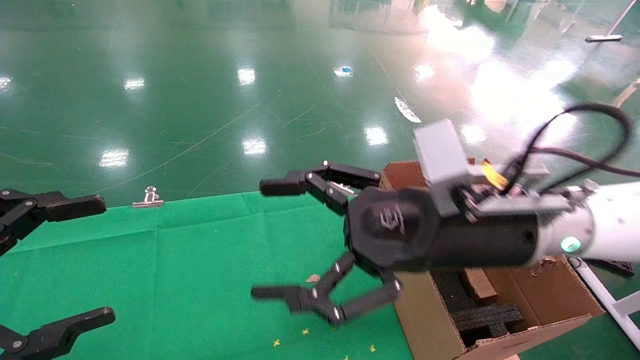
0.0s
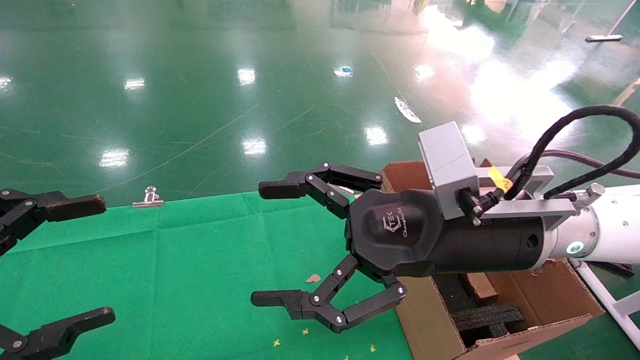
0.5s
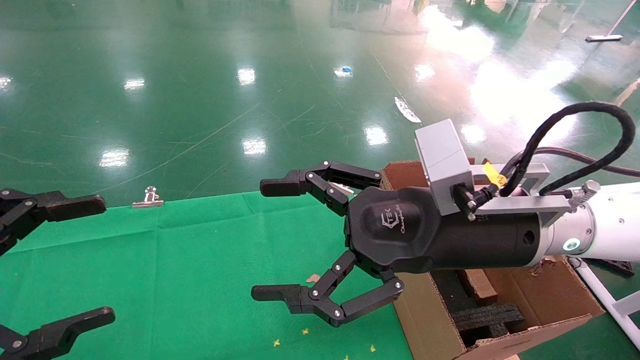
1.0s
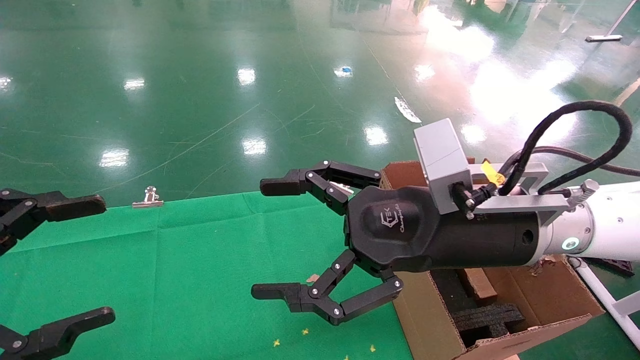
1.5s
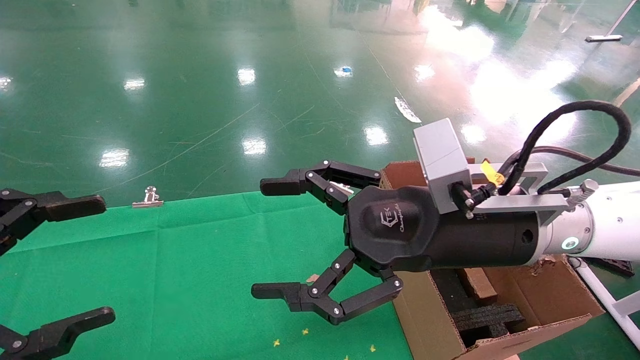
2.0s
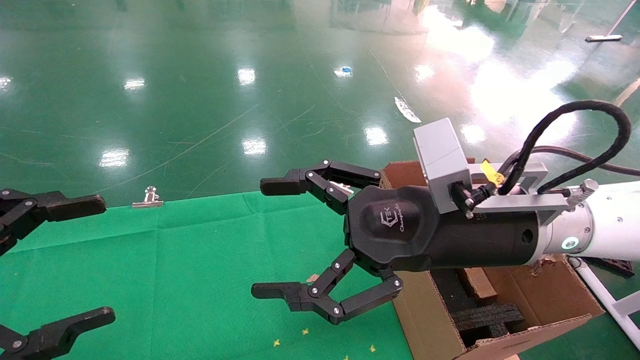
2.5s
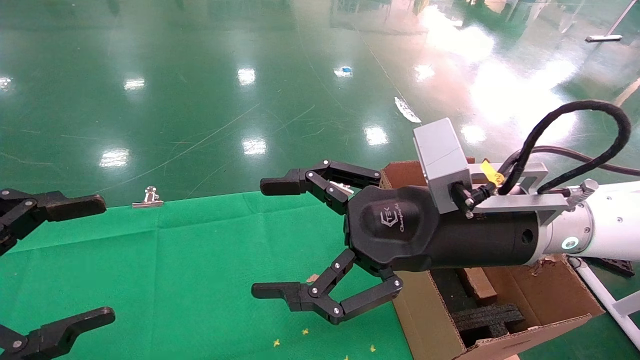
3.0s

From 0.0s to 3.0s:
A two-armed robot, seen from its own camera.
Task of the whole recording: using a robotic arm to pick up a cardboard box and palace it the carton.
From 0.0s to 3.0s: Both grippers stay about where they are.
